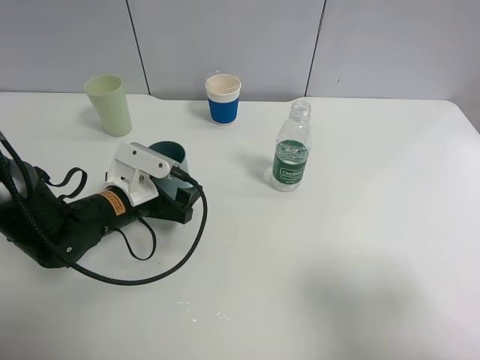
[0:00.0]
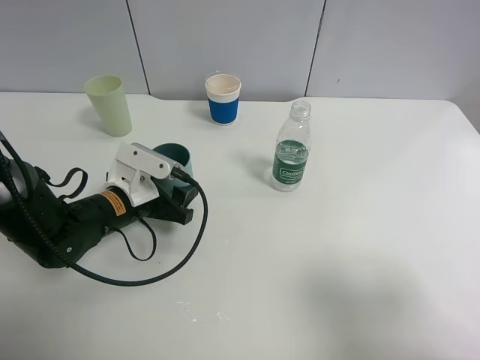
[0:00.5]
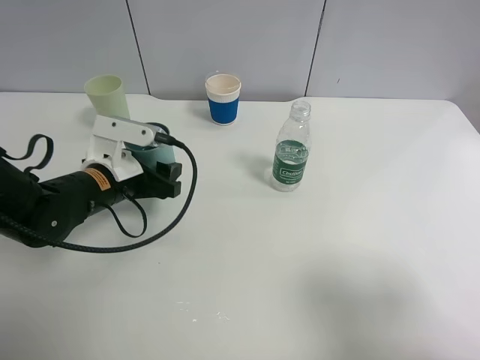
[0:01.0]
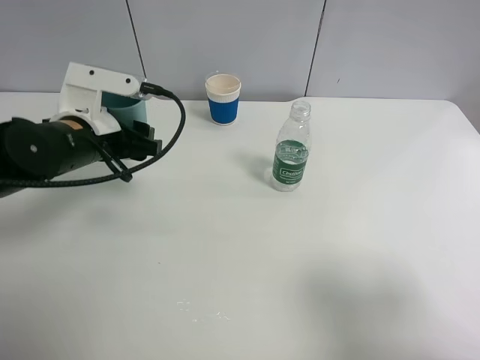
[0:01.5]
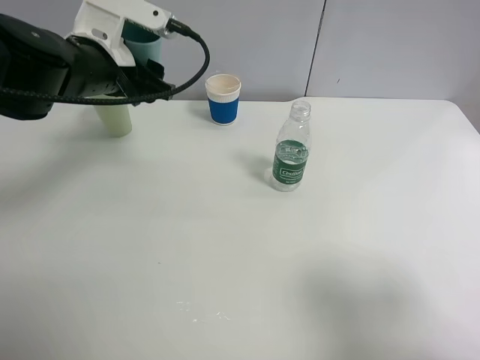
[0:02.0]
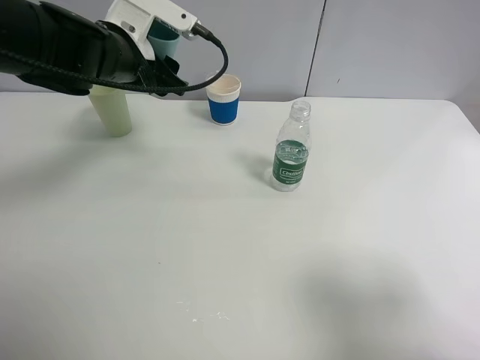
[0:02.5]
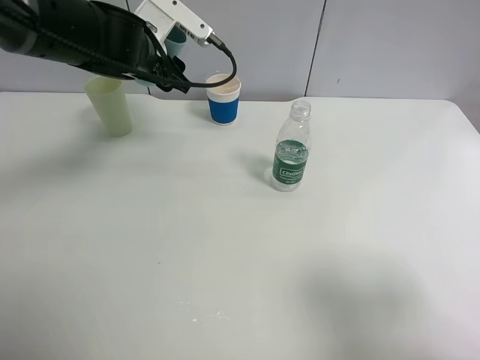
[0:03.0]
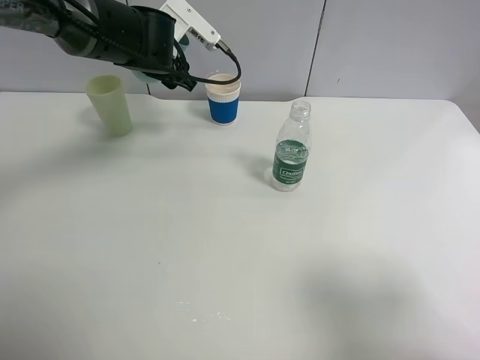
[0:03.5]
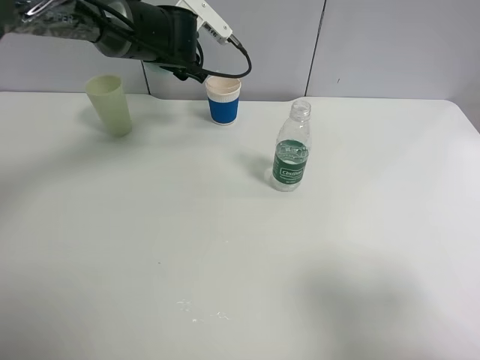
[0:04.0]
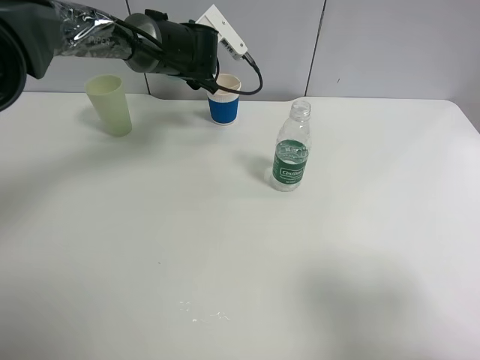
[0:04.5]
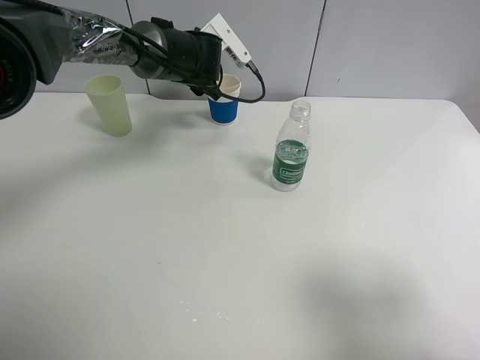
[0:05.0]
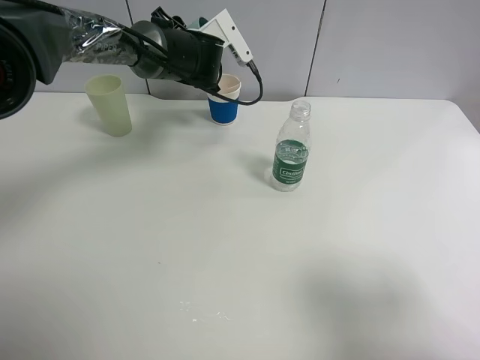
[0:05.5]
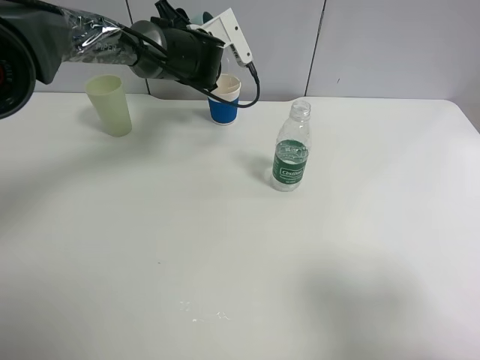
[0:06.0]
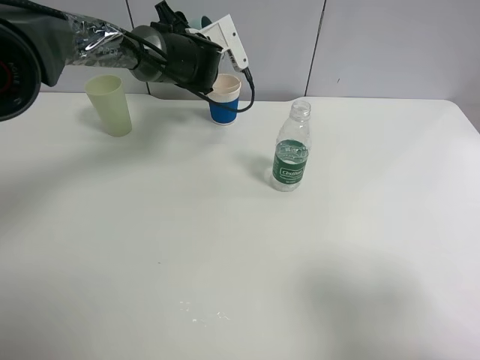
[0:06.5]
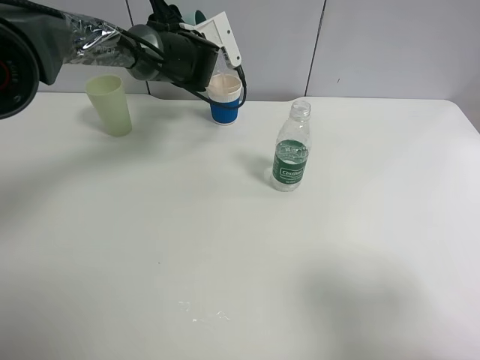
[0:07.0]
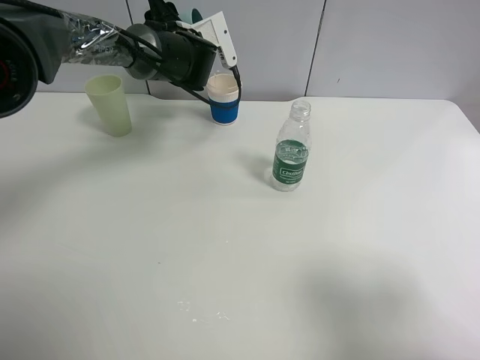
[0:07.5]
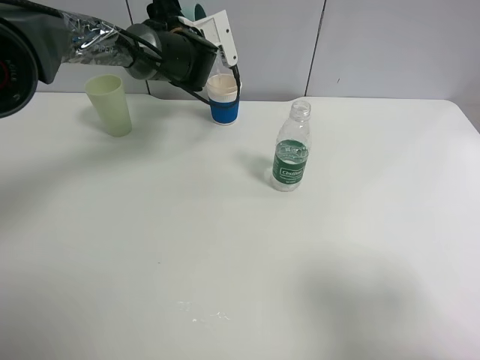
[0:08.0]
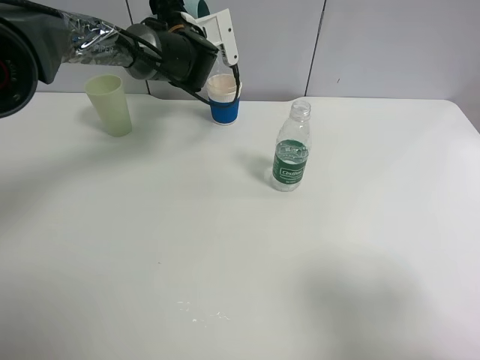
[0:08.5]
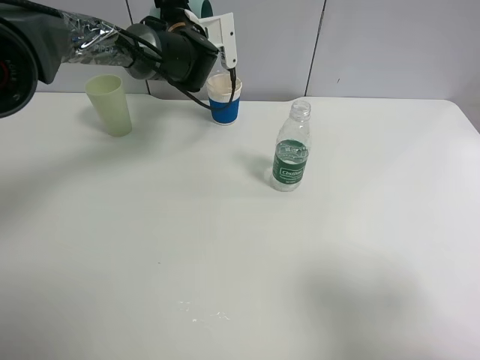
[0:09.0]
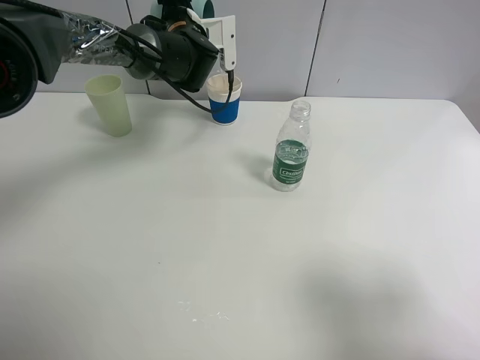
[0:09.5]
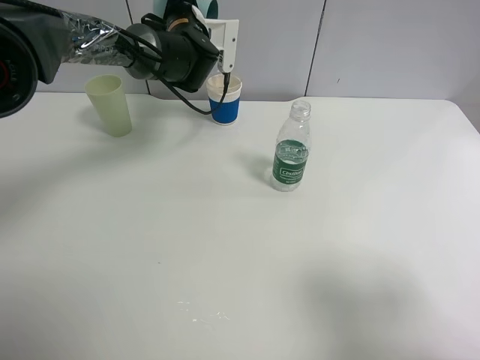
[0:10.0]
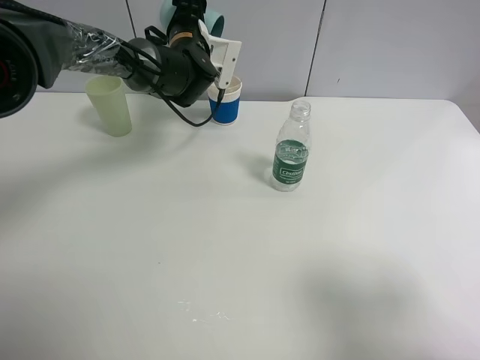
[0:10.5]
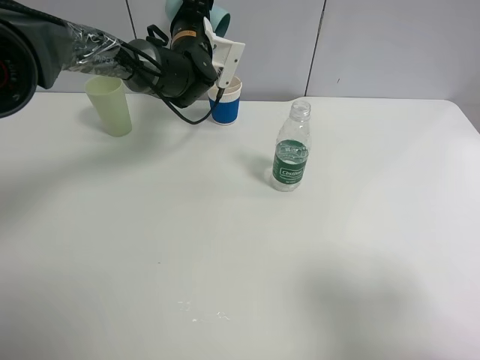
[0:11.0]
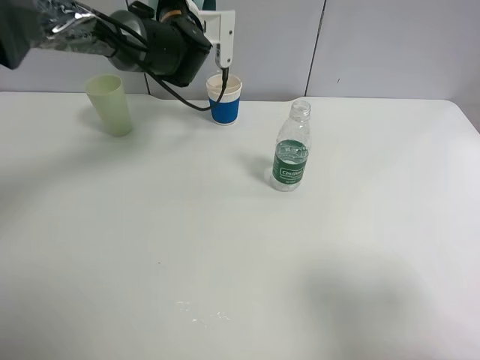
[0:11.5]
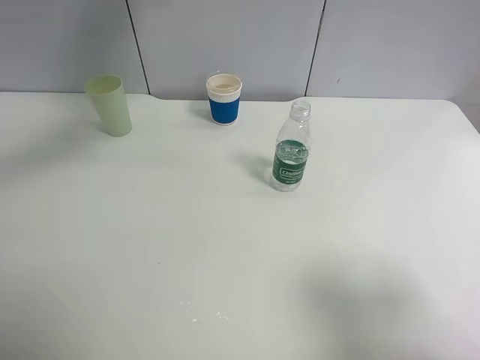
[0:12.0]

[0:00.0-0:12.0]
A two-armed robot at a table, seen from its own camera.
Task of the whole recording: use a clamp to hold the bottle of the drink, pour the beverage into a random cup, then clamp the cup containing the drink and pour the drink into another random cup.
Step, 0:02.0 to 0:11.5: Pour water into the paper cup with left gripper.
0:00.0 to 0:02.0: The left gripper shifts some 20 cm upward and forward.
0:02.0 to 0:04.0: The left gripper moves forward and to the right, about 15 cm.
0:06.0 to 0:08.0: The grippers make only small movements.
0:10.0 to 0:12.0: The left gripper shifts roughly 15 cm upward and backward.

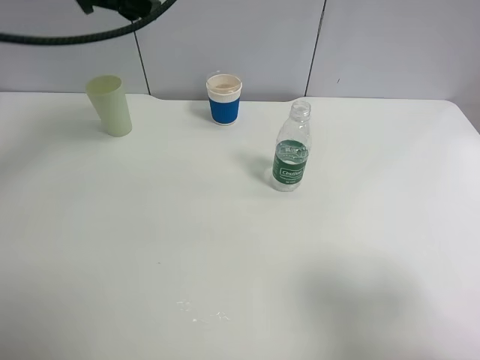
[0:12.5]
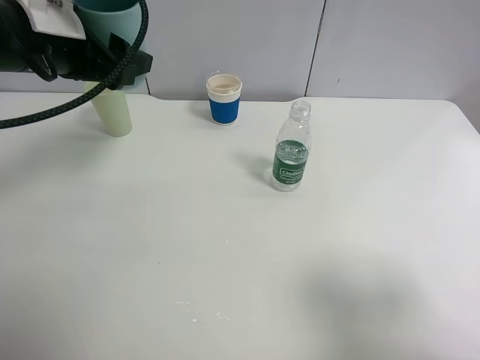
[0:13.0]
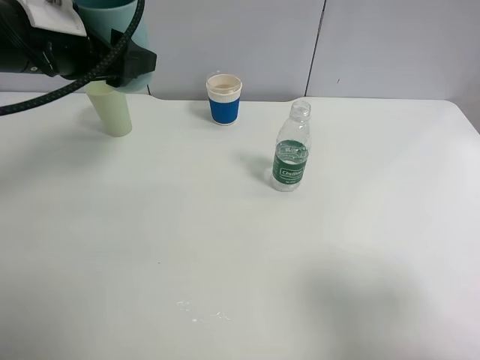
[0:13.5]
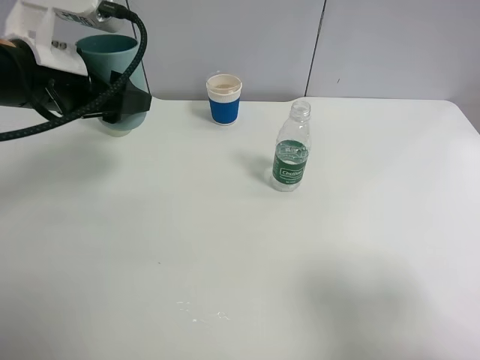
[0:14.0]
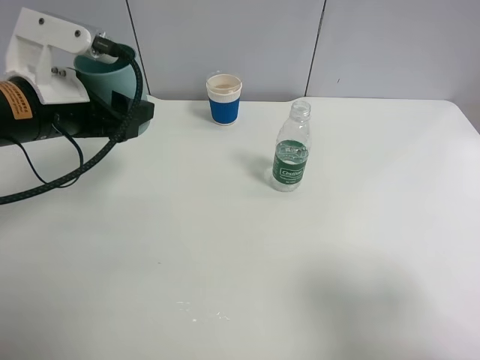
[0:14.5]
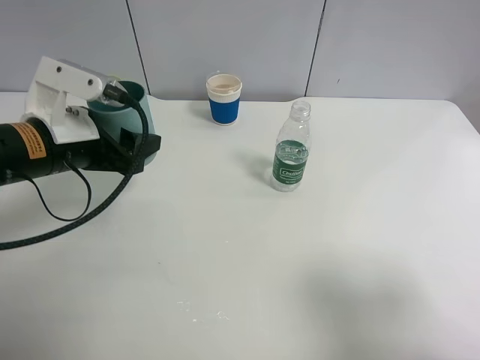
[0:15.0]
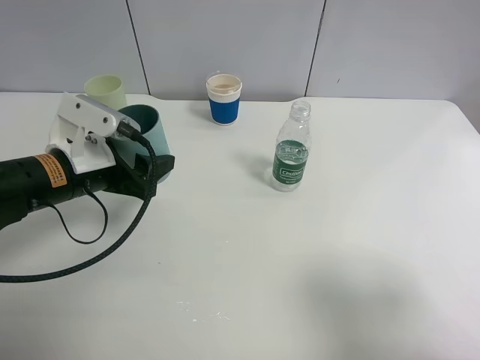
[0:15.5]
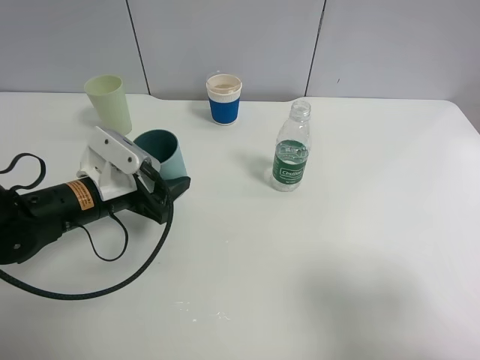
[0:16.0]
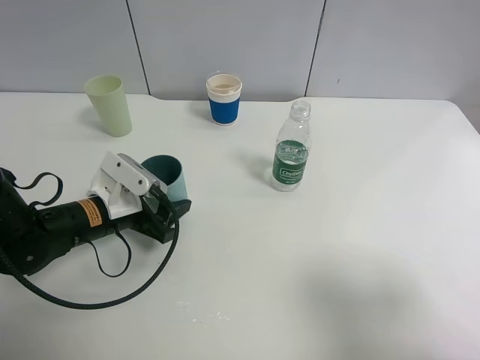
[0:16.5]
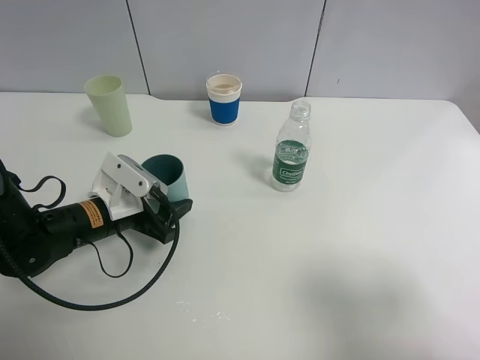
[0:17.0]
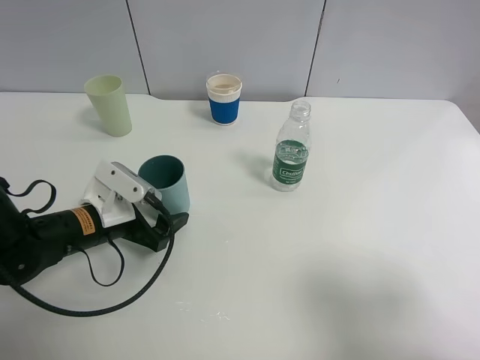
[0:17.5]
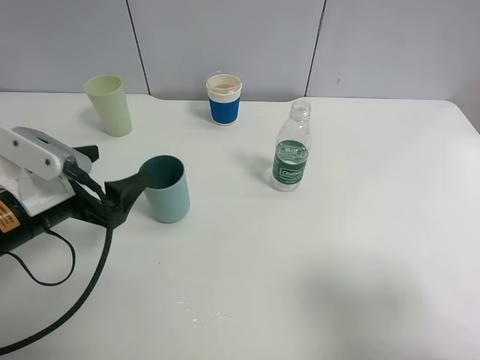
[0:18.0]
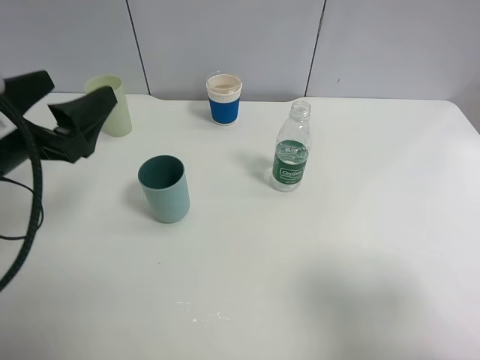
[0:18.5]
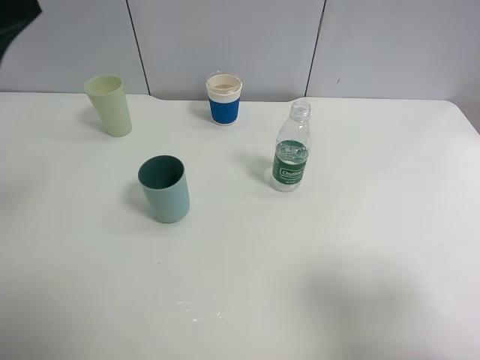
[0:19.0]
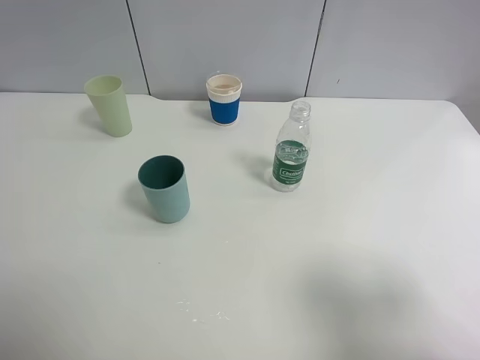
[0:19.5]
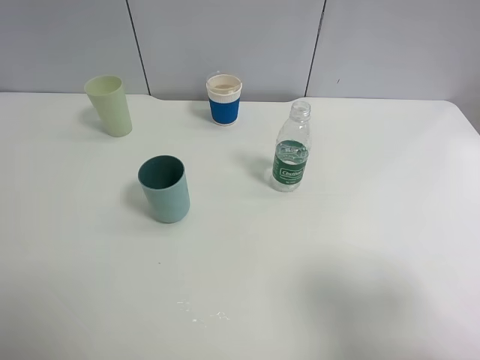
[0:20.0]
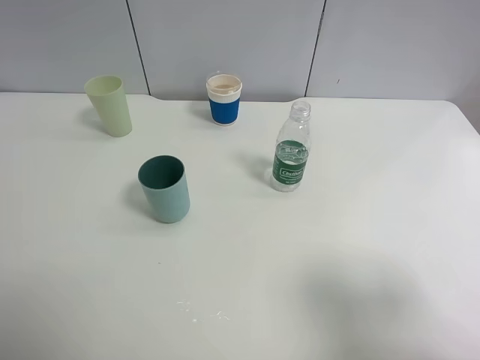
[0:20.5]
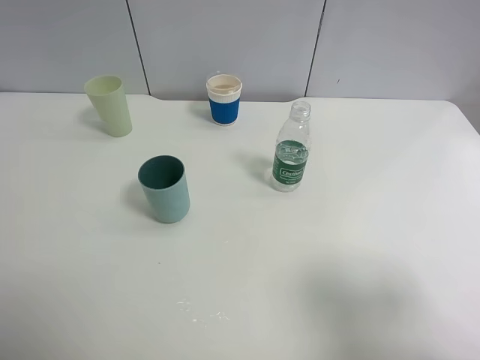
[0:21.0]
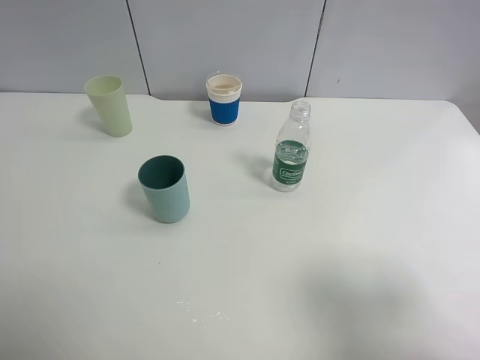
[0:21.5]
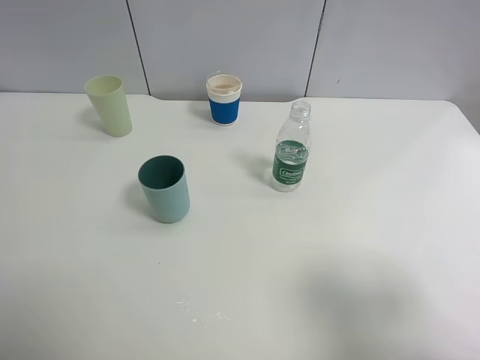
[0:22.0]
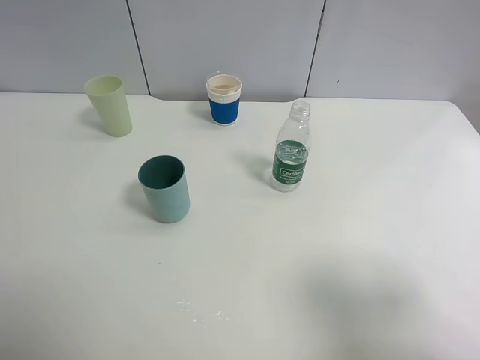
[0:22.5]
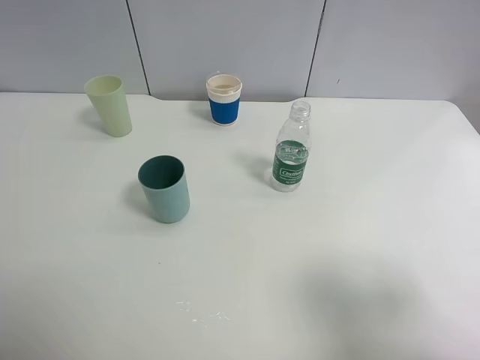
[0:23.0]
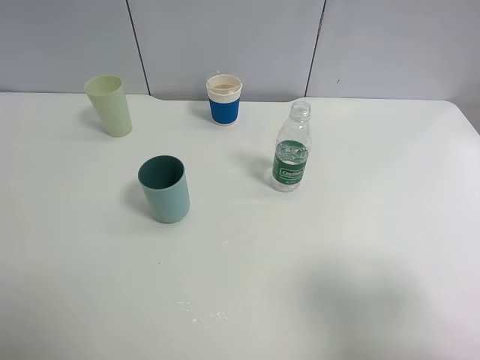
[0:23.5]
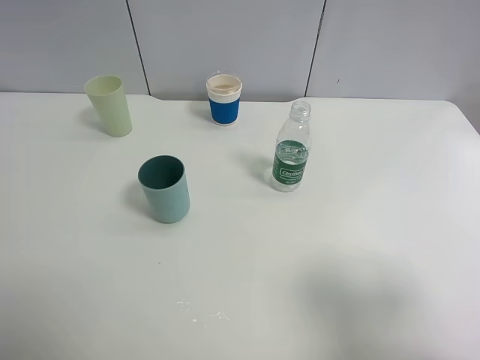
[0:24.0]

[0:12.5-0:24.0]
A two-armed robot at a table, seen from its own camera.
Task of the whole recording: use a clamp to hold the bottle of the drink, pour the beverage into a random cup, then clamp the cup containing the drink and pour the drink into another random cup.
Step, 0:12.5 to 0:18.0: Place the blue plastic cup on the table with left gripper.
0:12.5 to 0:14.5: The left gripper shifts approximately 10 cm downward and backward.
0:14.5 to 0:16.5: The left gripper travels downward by about 15 cm.
0:16.5 to 0:18.5: The left gripper moves upward, about 15 cm, and opens its fingers.
0:18.5 to 0:20.0: The left gripper heads backward, upward and to the left, covering about 20 cm.
0:22.0 to 0:24.0: Neither gripper changes place.
